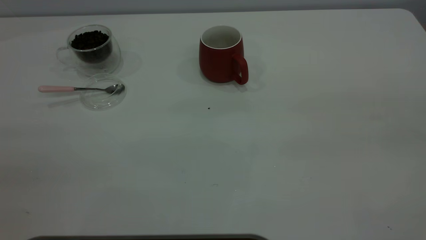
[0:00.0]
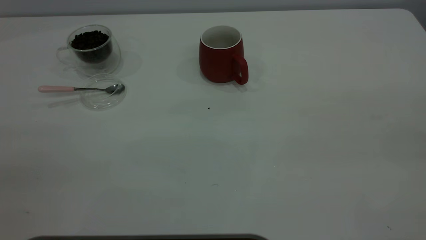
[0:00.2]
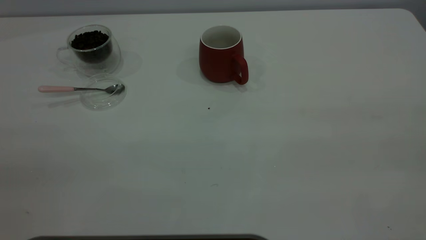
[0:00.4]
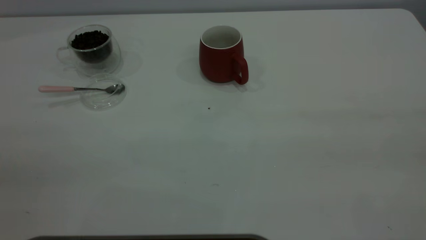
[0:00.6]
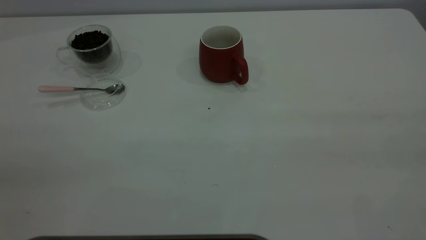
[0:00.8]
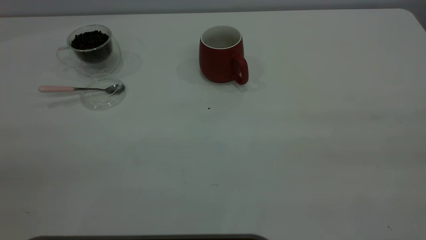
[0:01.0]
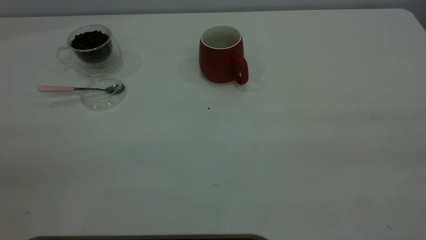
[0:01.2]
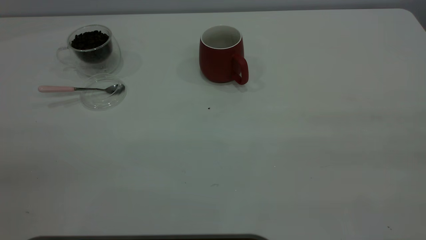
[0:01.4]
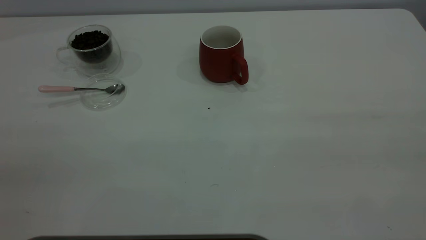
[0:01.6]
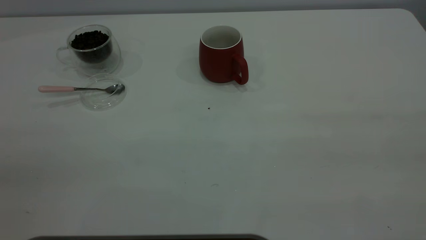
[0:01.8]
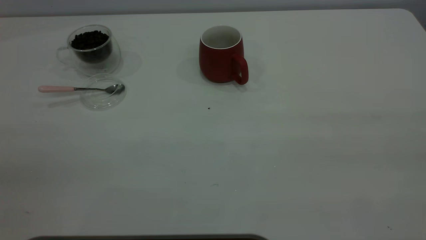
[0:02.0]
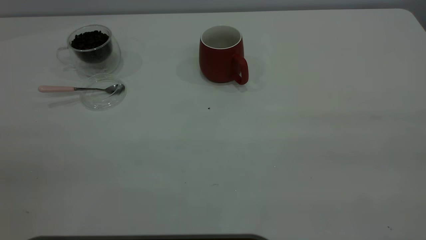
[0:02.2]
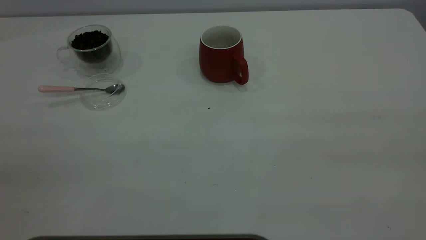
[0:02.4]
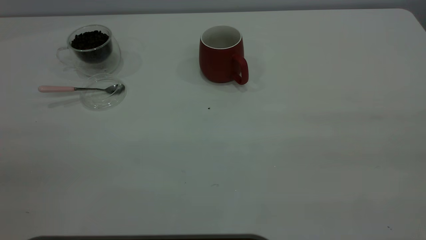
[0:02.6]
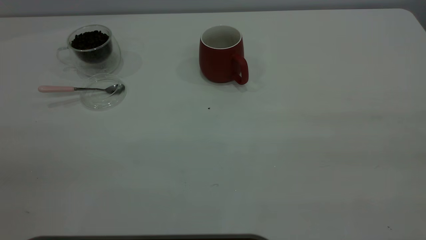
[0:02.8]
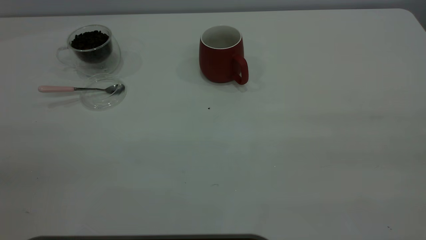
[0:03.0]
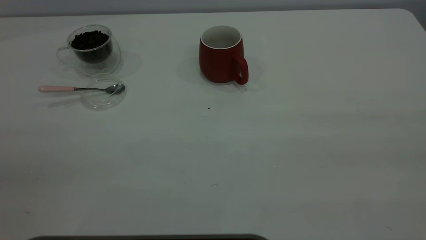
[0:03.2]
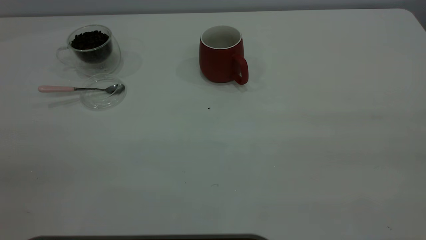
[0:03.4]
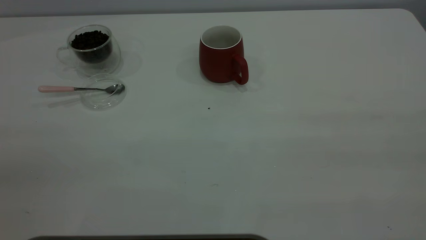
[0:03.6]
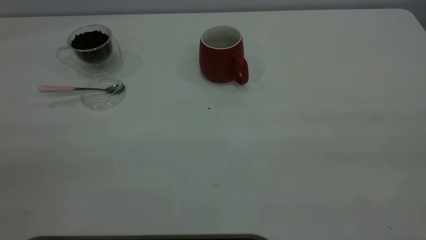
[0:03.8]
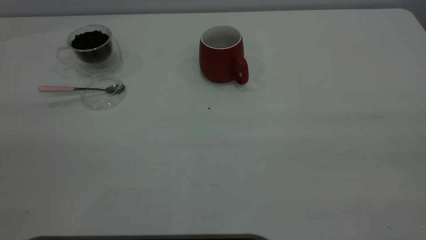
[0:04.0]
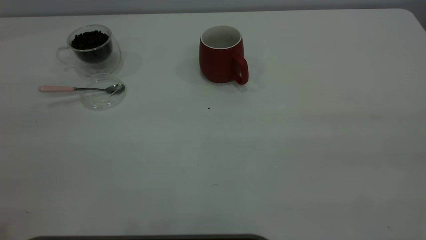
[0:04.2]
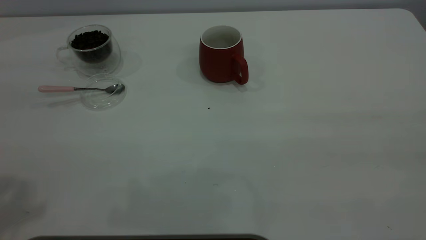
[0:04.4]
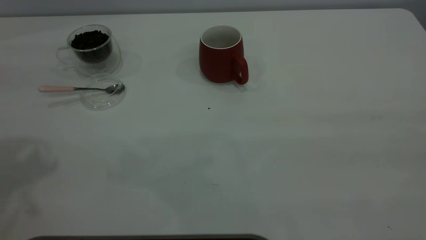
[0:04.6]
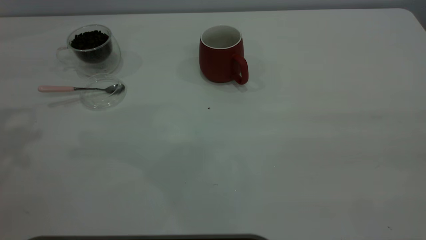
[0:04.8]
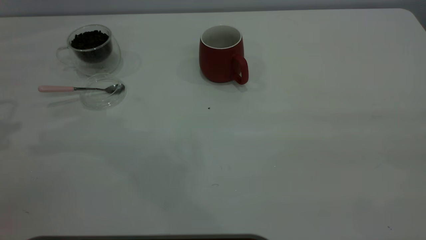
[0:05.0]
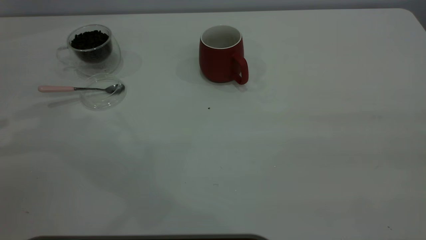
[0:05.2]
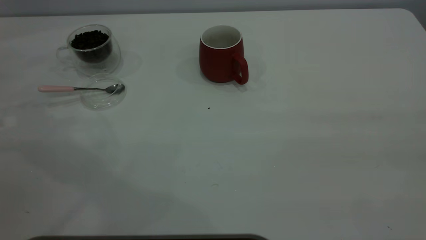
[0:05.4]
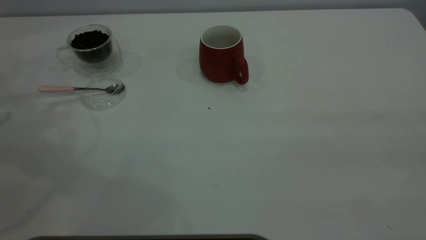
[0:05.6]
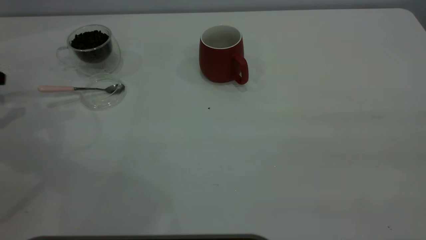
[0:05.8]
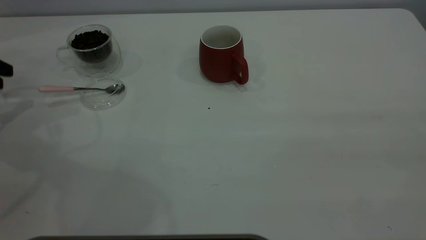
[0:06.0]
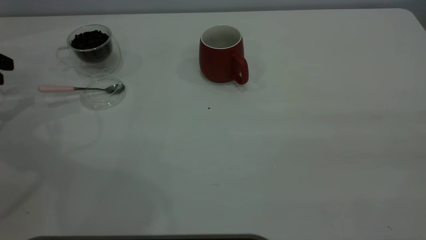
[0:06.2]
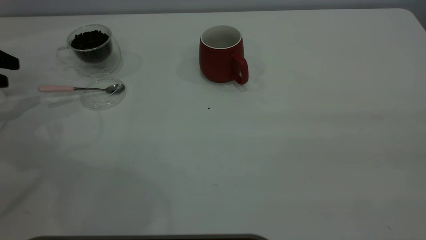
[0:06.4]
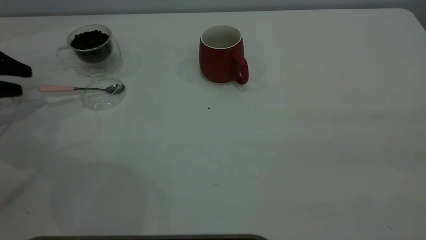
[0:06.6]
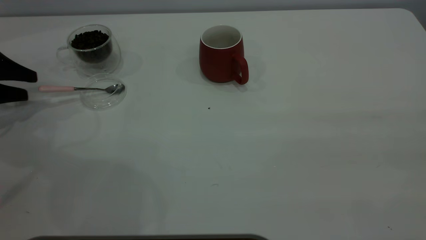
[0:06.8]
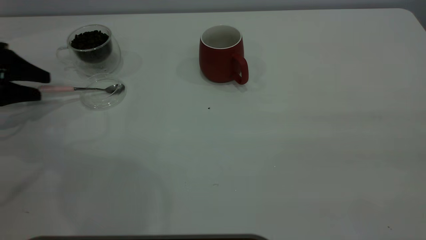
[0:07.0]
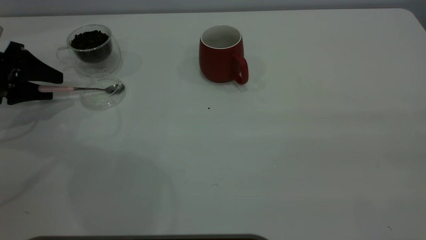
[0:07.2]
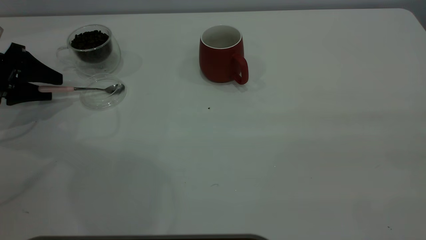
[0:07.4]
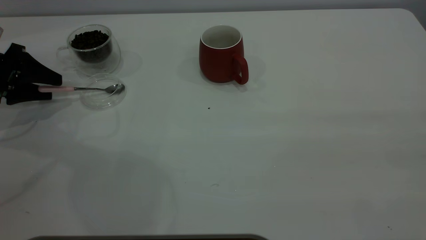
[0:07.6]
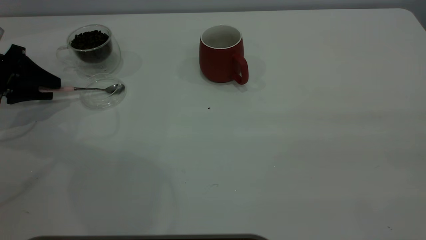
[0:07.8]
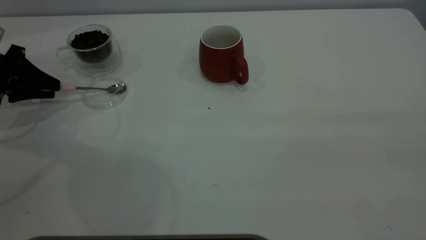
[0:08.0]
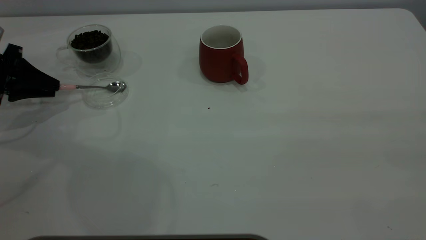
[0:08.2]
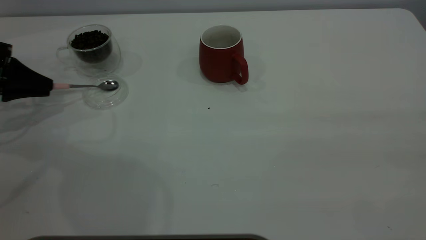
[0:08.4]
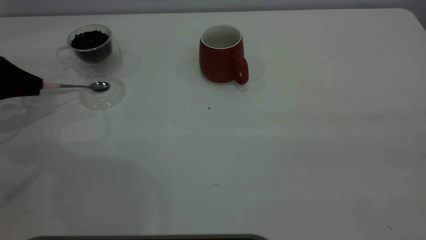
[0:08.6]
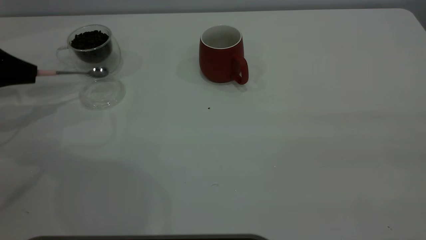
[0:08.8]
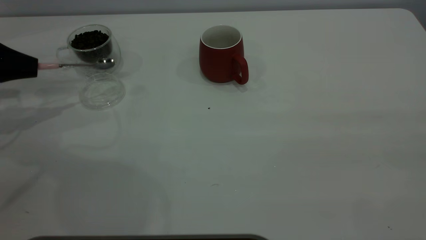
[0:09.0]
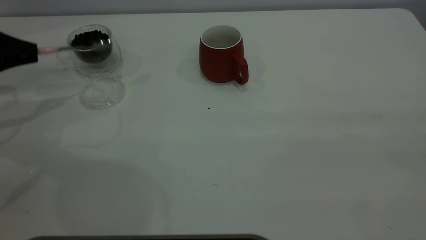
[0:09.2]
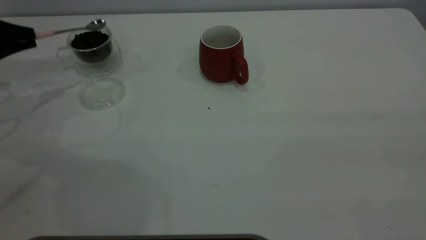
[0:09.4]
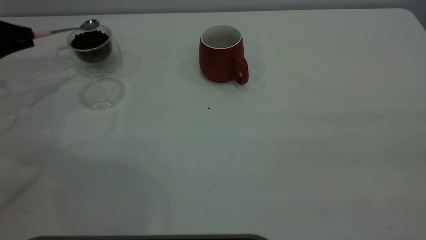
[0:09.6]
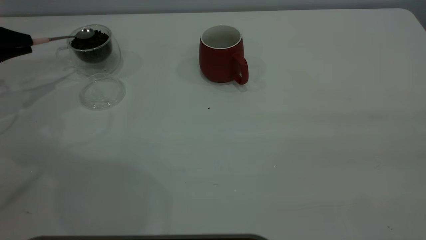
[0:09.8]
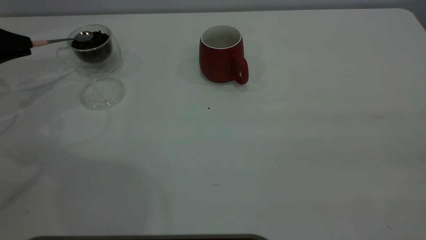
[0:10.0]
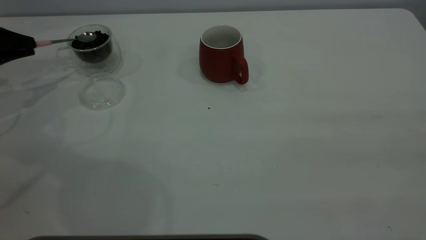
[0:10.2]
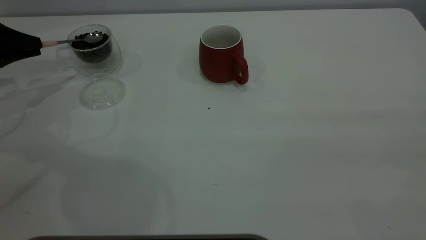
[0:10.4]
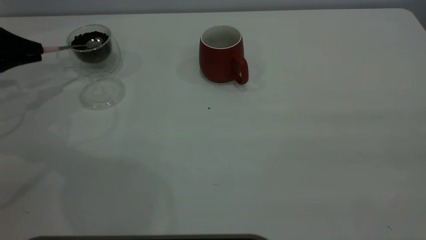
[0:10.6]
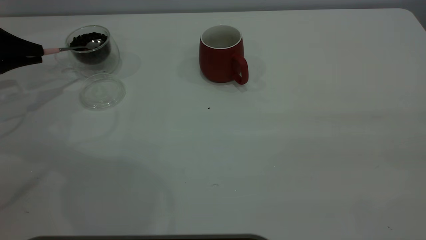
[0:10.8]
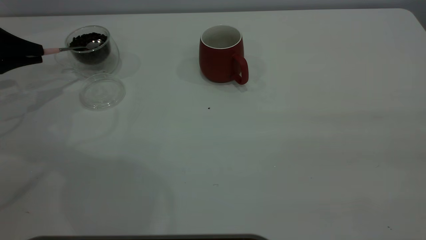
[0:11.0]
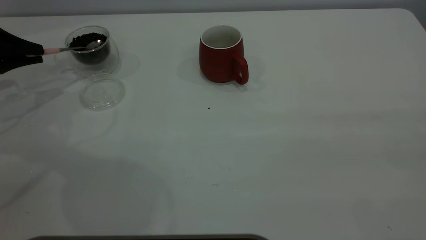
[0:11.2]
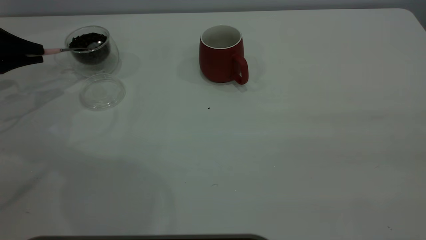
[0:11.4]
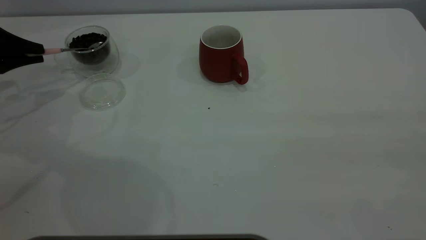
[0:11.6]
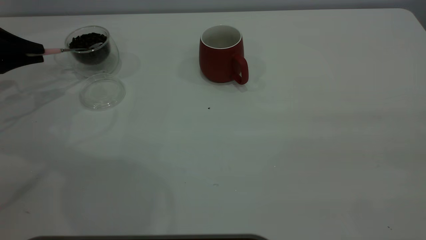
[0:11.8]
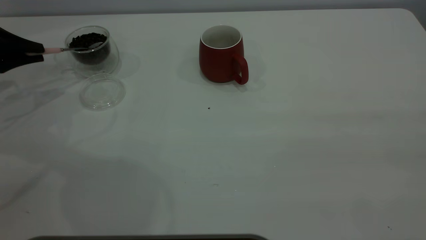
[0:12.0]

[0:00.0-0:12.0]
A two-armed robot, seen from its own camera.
Task of the whole recording: the right gripper place the red cup in the center of the table, the left gripper take the pink spoon from the cup lid and scoop out the coffee beans from the coffee cup and put them into the red cup, the left gripper put the spoon back into the cup lid.
Step, 0:00.0 to 0:09.2: Pick up the spoon.
0:01.6 to 0:03.0: Both grippers stay about where they are.
0:06.0 to 0:07.6: The left gripper moves to the right, about 5 cm.
0:07.6 to 0:09.0: The left gripper closes up.
0:09.0 to 0:10.4: There are only small adjustments of the grippers.
0:10.4 to 0:12.0: The grippers stay close to where they were, moving slightly.

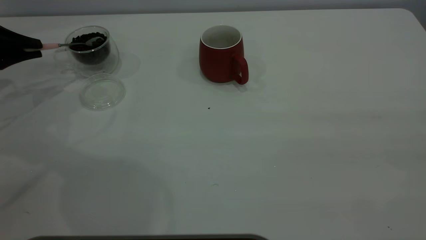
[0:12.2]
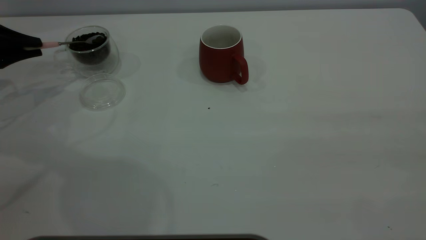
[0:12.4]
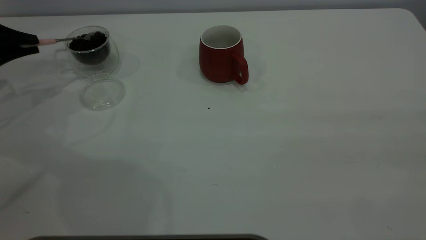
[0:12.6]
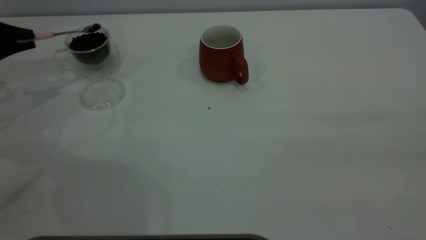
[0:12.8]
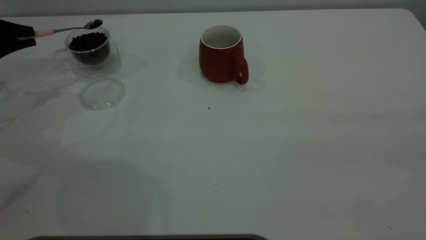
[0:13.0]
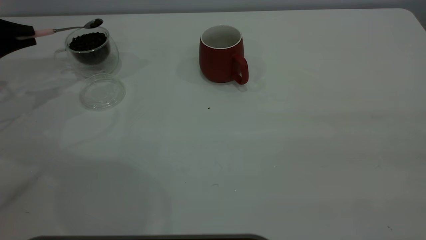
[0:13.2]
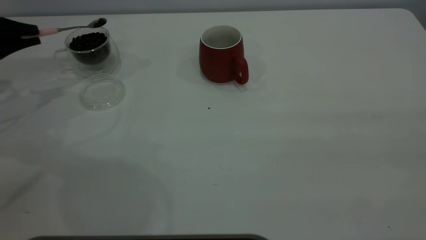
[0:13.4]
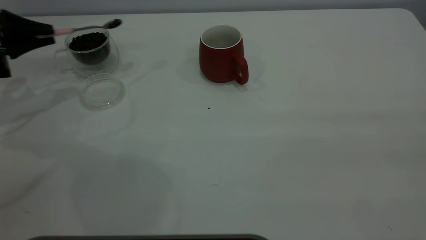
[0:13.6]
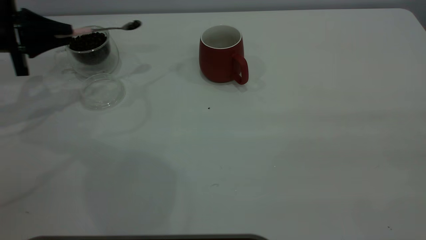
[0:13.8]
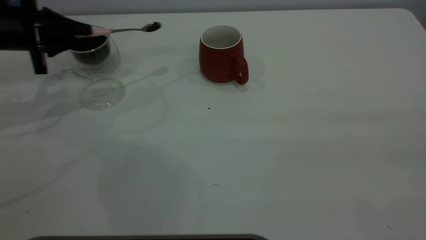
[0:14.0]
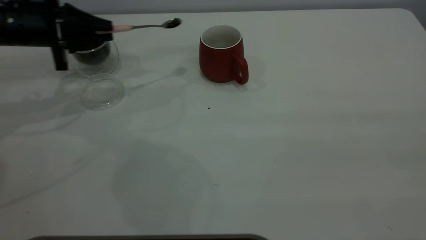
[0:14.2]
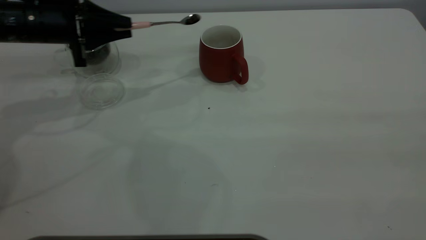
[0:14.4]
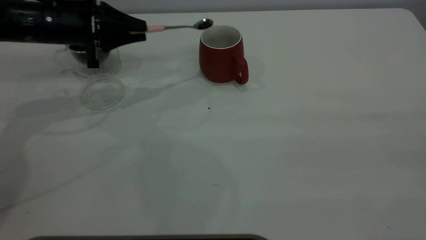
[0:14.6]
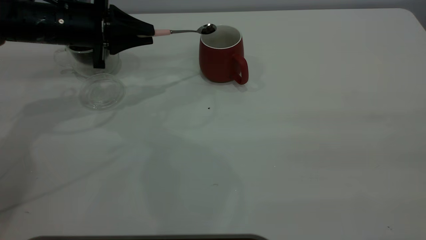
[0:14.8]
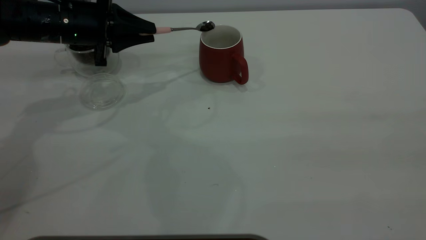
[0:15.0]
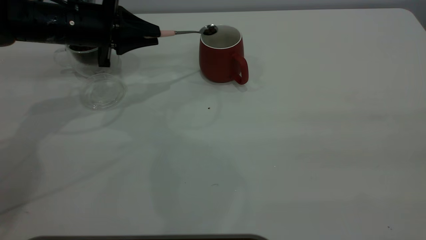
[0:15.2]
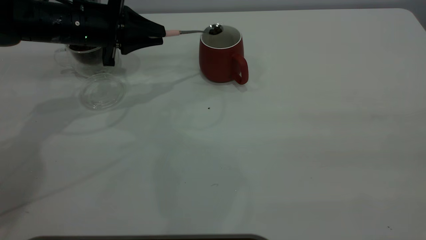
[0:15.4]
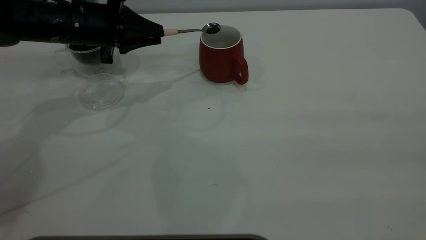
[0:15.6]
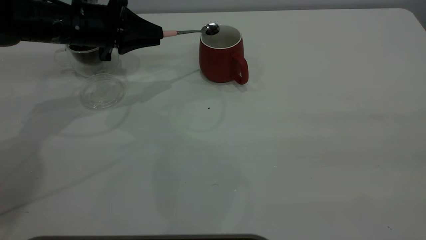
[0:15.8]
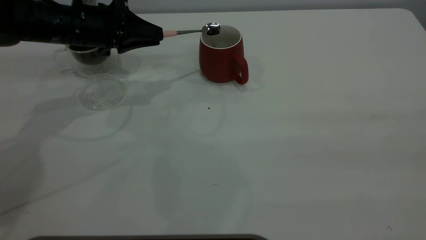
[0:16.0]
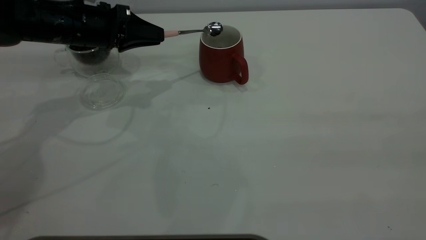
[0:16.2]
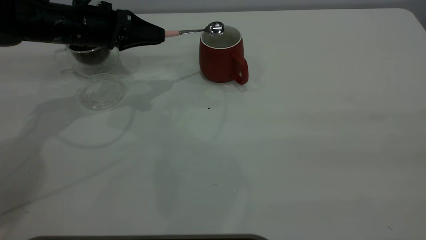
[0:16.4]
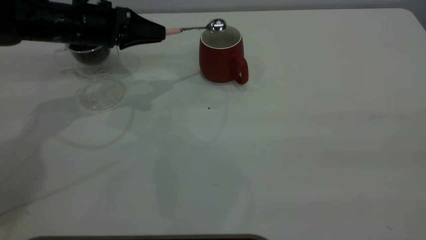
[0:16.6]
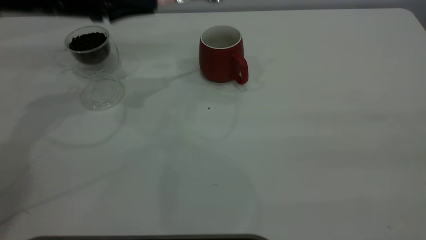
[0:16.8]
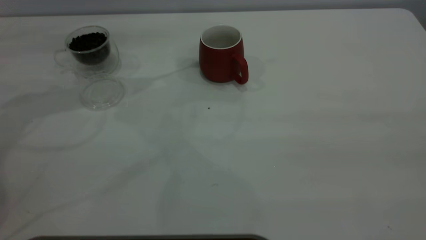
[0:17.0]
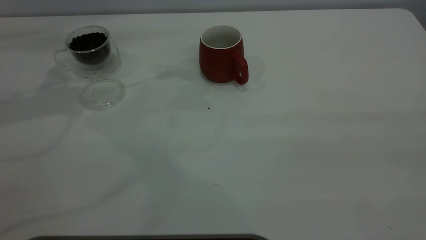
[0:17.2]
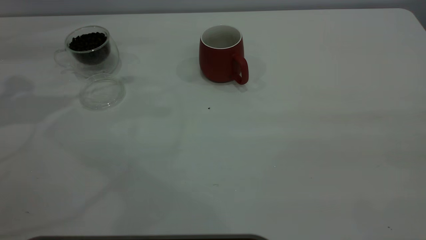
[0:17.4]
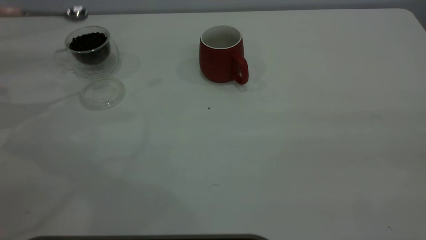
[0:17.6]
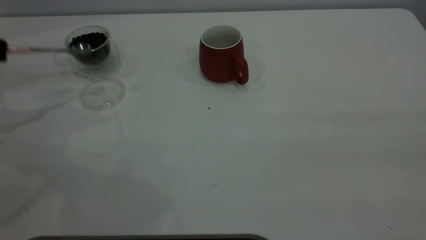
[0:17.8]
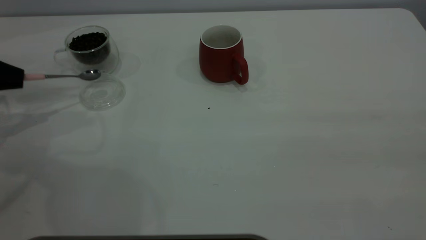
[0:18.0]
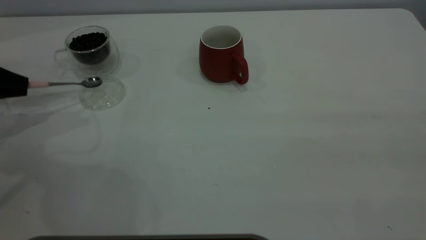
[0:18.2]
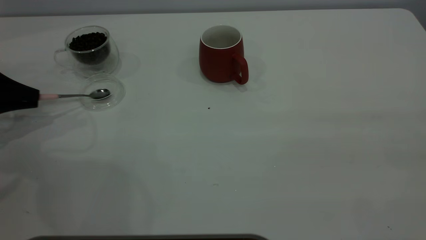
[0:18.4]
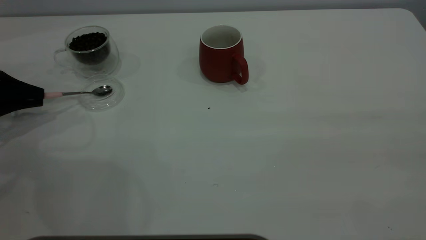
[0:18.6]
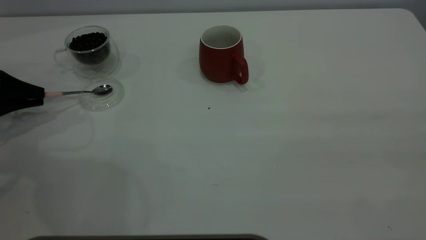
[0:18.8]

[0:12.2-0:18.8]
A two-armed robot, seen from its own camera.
Task of the whole recording: the right gripper place the red cup in the center of the table, the left gripper take the pink spoon from the cup lid and scoop out the coffee beans from the coffee cup and put them into the red cup, the left gripper put the spoon back into the cup lid.
Step, 0:12.2 to 0:16.6: Scoop a spoonful of beans into the cup.
0:12.2 to 0:13.8: The left gripper moves to the right, roughly 5 cm.
0:13.8 to 0:15.4: The left gripper travels to the right by approximately 15 cm.
0:15.4 to 0:17.2: The left gripper goes about 20 cm upward and to the left.
0:17.2 to 0:18.8: The left gripper heads downward and to the left, covering roughly 20 cm.
